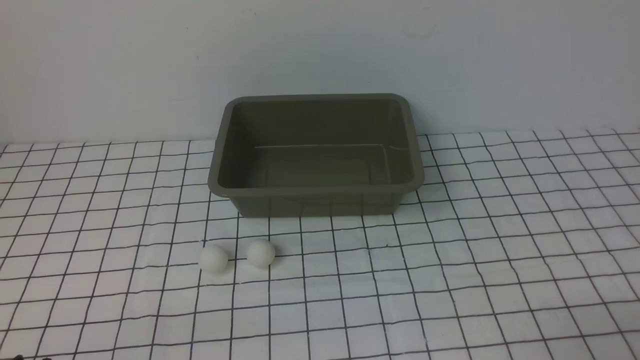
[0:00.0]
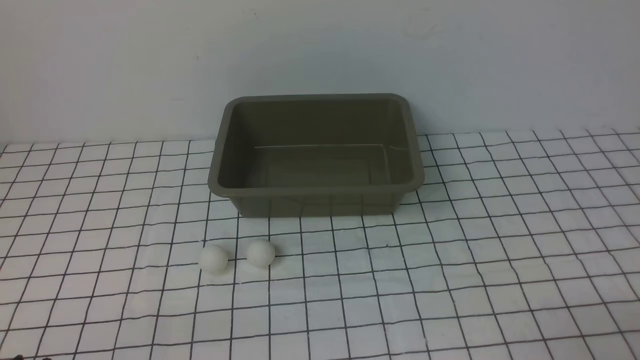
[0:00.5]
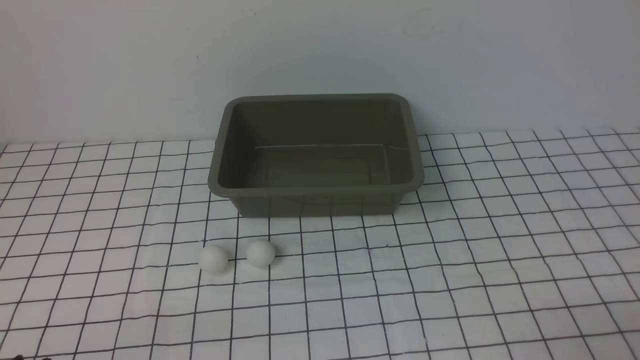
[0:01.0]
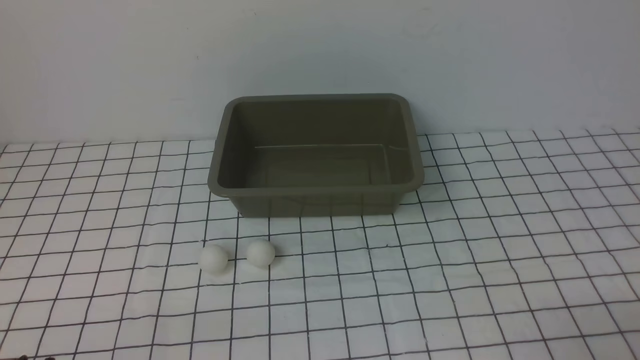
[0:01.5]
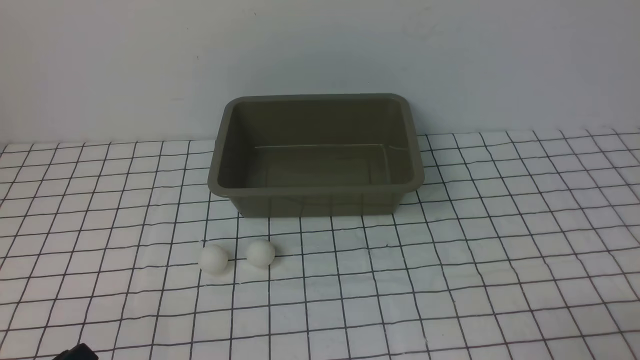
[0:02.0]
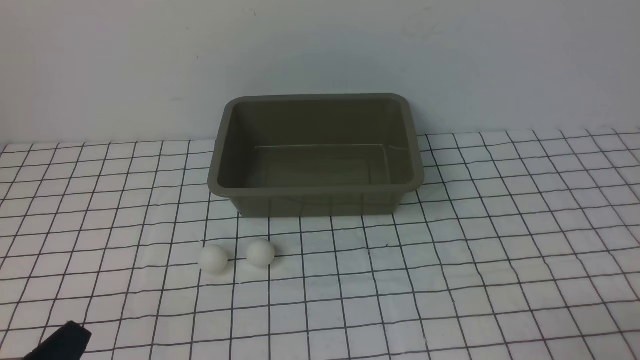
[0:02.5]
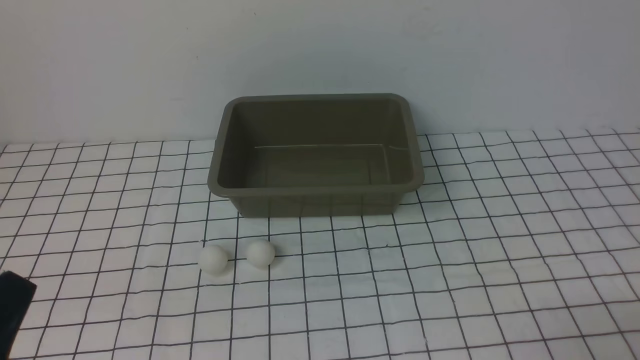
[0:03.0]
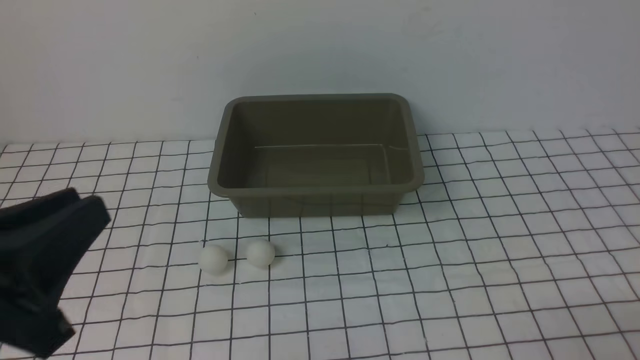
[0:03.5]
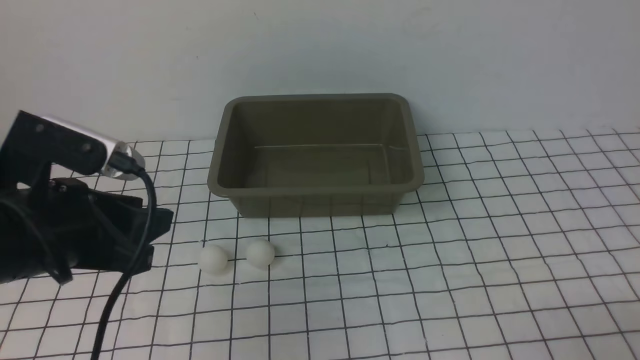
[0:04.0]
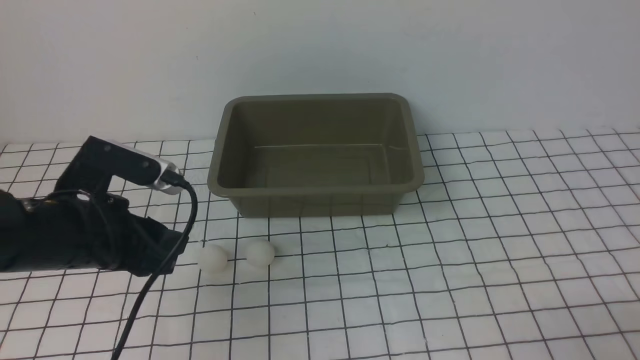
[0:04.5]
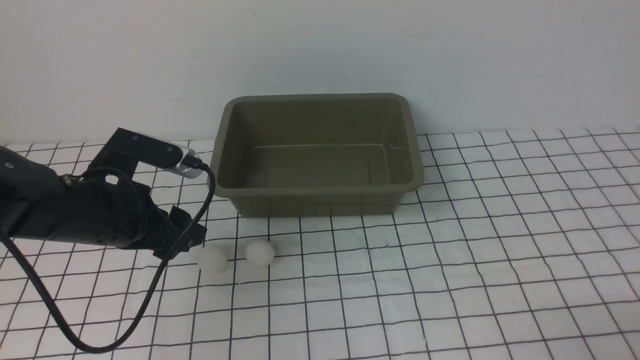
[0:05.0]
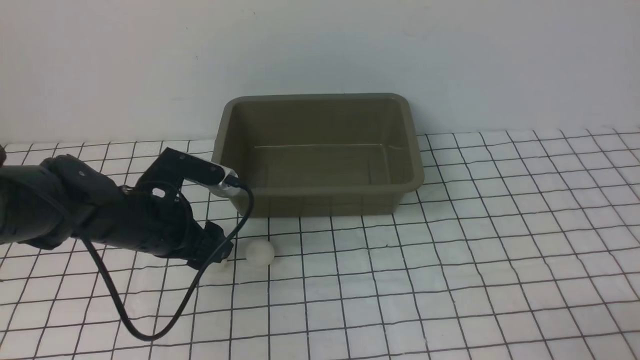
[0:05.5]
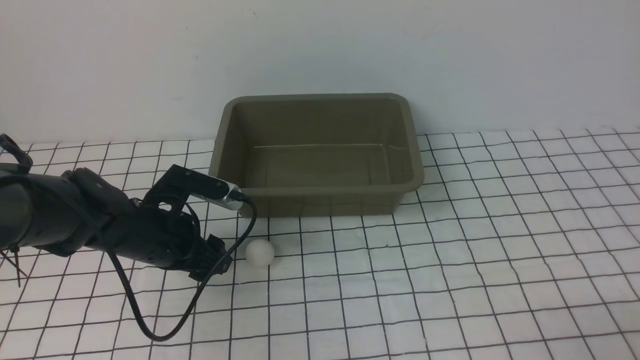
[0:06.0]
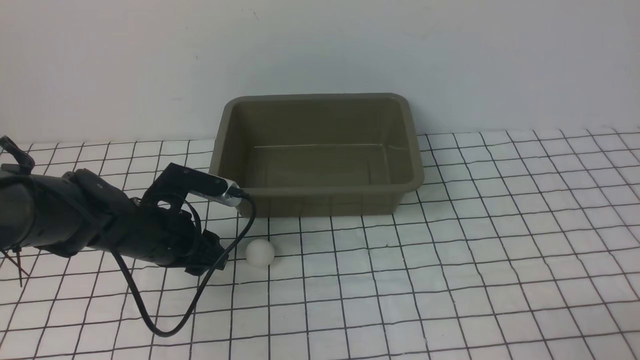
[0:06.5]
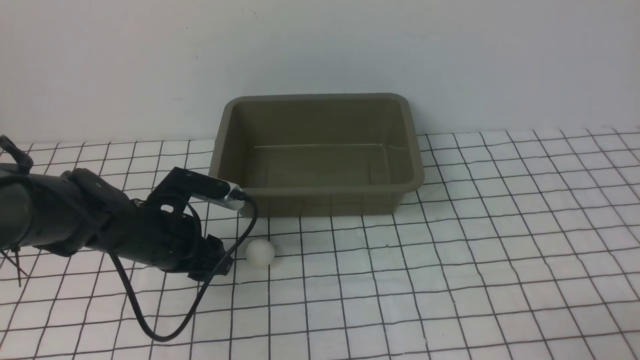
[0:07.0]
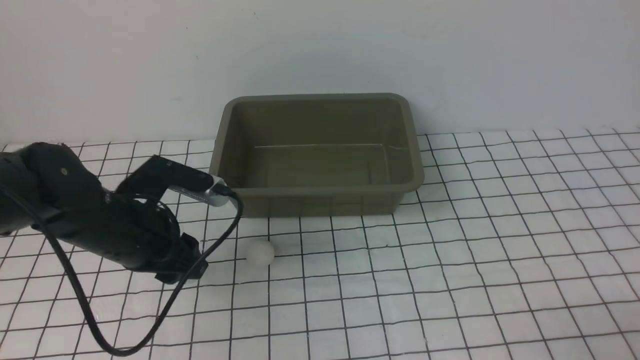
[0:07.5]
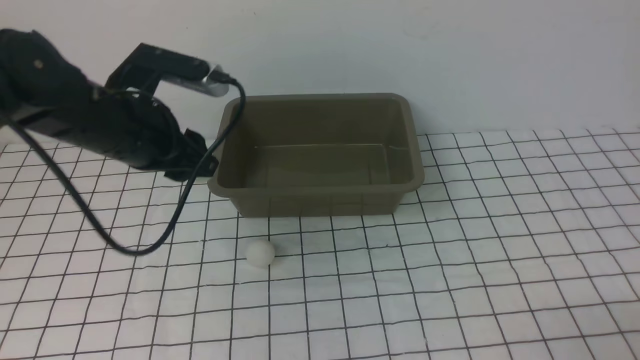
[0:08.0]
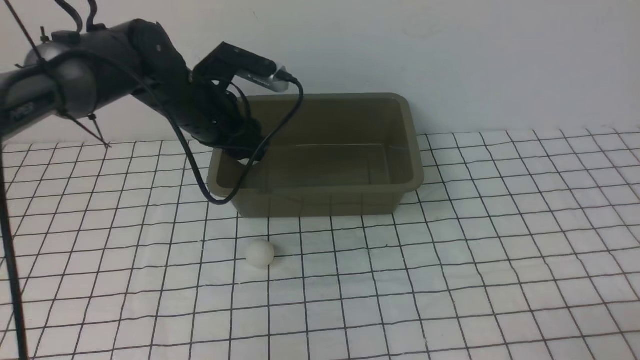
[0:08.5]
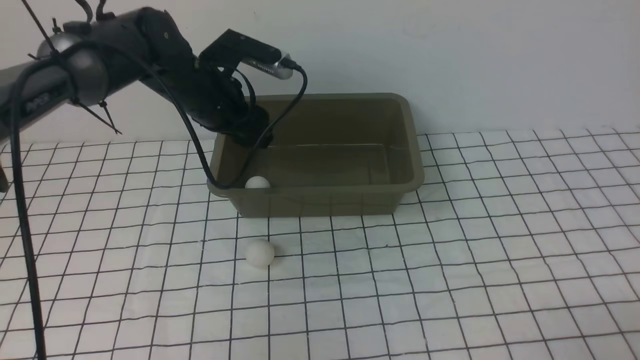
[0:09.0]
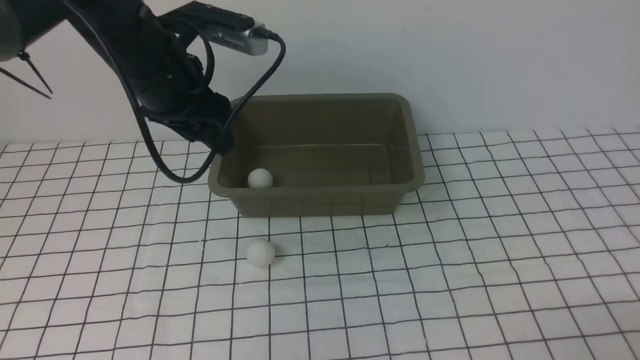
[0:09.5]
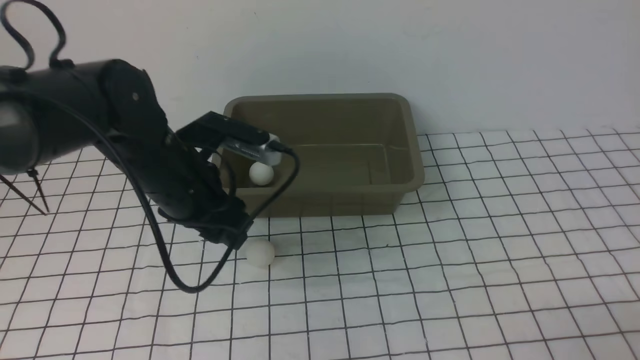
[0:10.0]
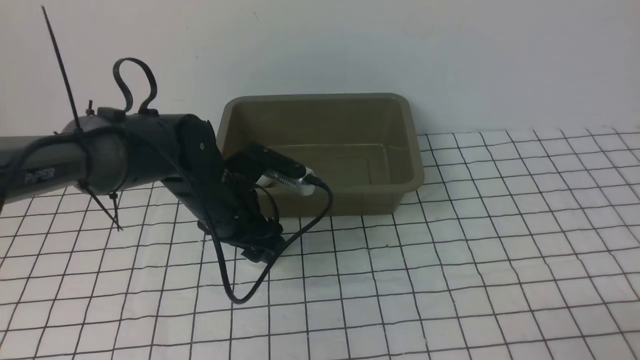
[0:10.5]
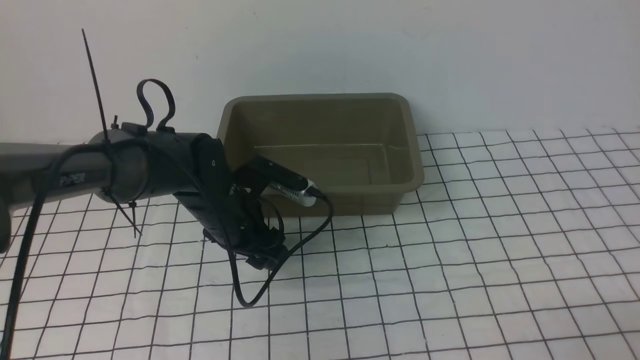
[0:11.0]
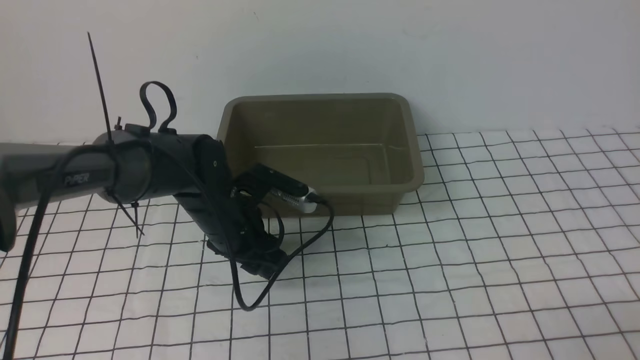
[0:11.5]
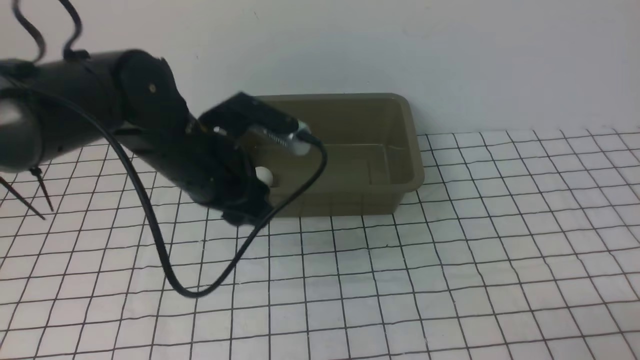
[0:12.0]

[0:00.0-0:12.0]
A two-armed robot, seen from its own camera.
Step, 0:00.0 to 0:07.0: use the left arm to clamp the table tennis ball closest to it.
Step, 0:07.5 to 0:09.0: use the left arm to put the table tennis ball into the box.
Step, 0:09.5 to 0:11.5: use the left arm to clamp the table tennis ball closest to it.
0:02.0 to 0:04.0: The left gripper shifts approximately 20 cm forward and upward.
0:04.0 to 0:06.0: The left gripper heads downward and forward, covering about 20 cm, and opens up.
0:06.0 to 0:08.0: The left gripper travels upward by some 15 cm.
0:08.0 to 0:10.0: The left gripper goes forward and returns, roughly 10 cm each way.
0:10.0 to 0:12.0: The left gripper moves approximately 10 cm downward and comes back.

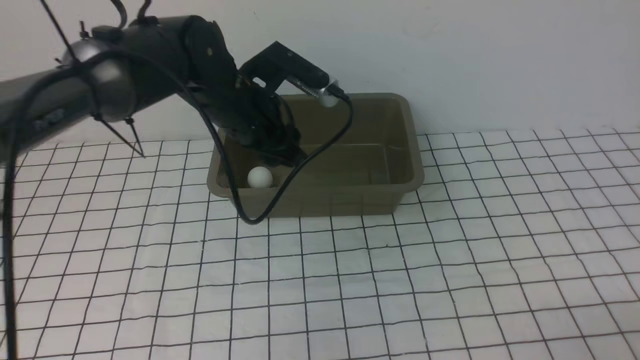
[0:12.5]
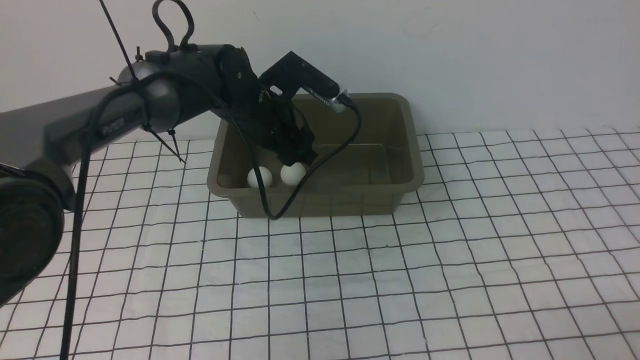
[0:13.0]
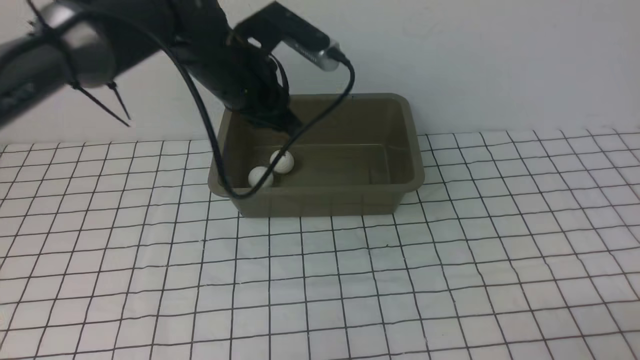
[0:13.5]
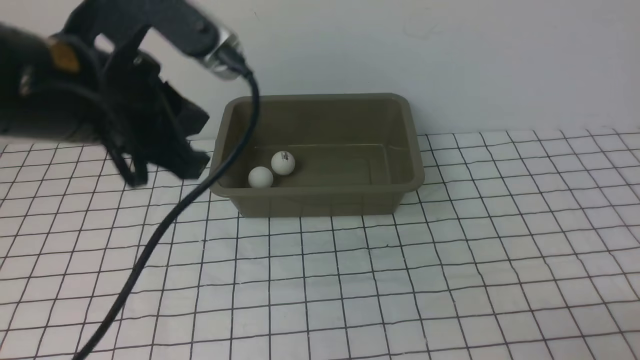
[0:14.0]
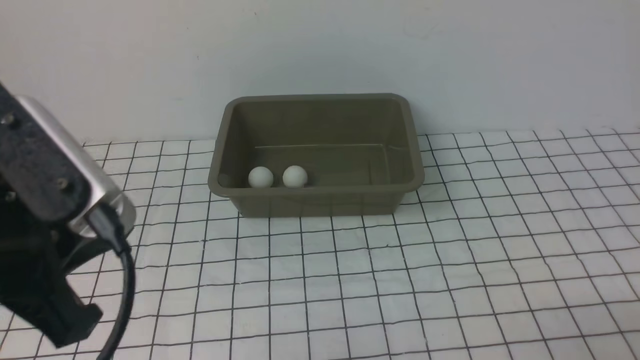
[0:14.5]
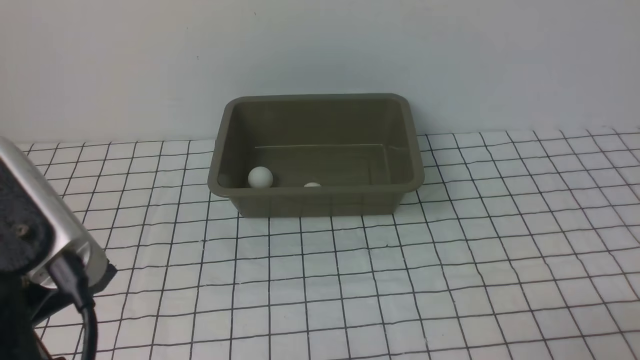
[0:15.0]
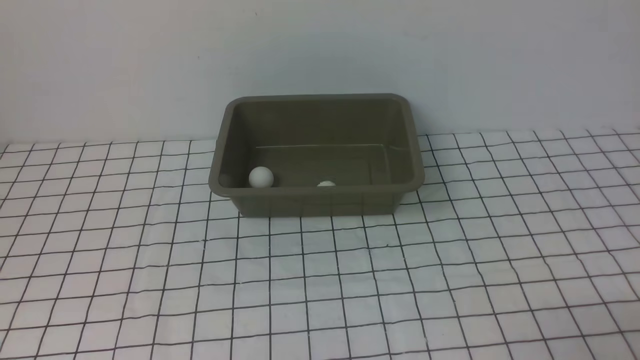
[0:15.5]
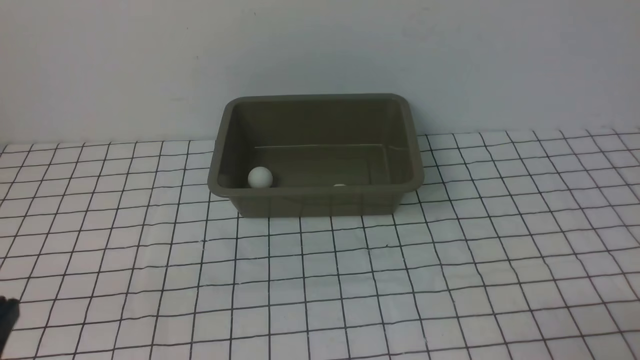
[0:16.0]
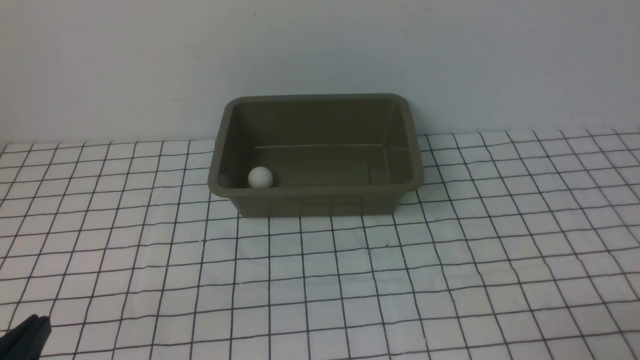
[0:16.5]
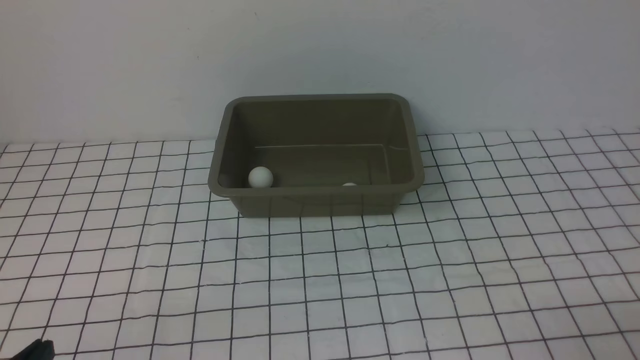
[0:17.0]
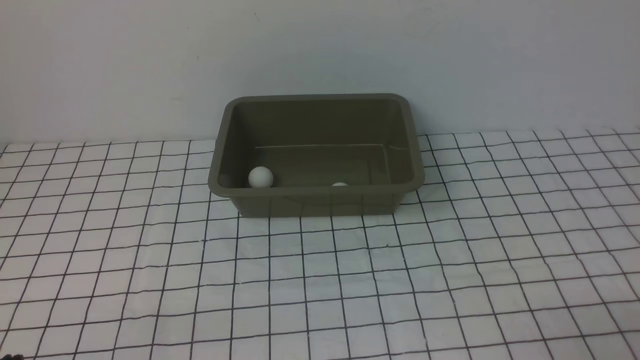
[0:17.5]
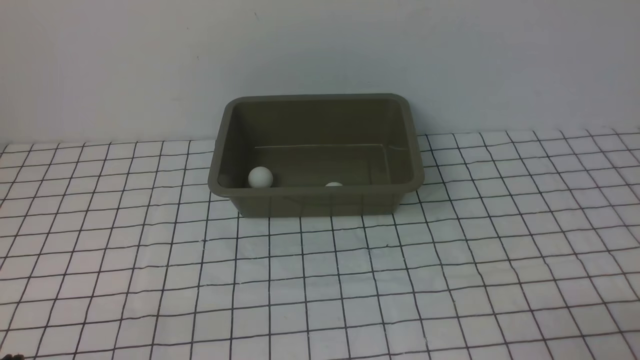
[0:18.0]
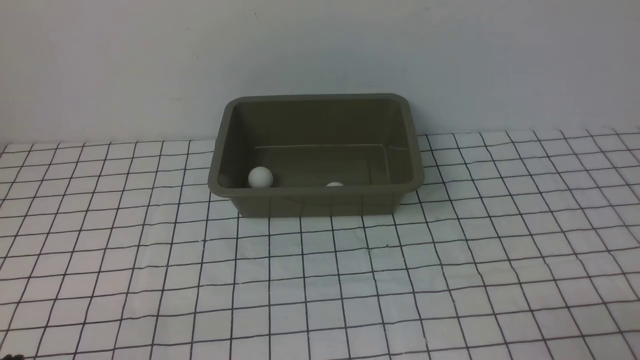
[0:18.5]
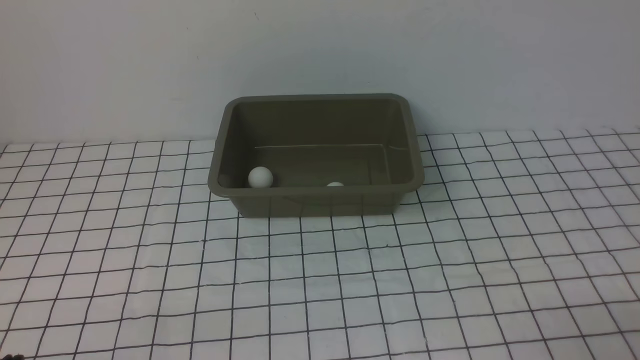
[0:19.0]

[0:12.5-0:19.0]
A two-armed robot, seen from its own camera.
0:12.5 to 0:14.5: The left gripper goes some 25 cm backward, and closes.
0:14.5 to 0:17.0: The left gripper heads downward and backward, covering approximately 20 cm.

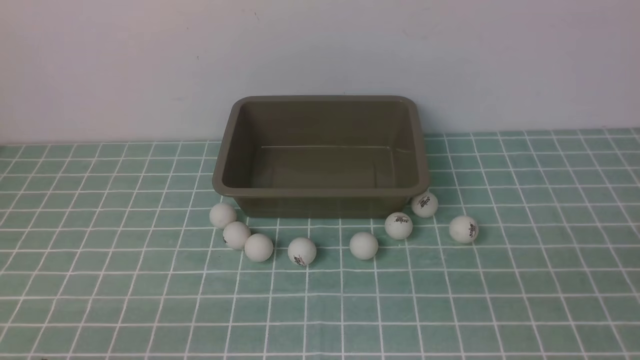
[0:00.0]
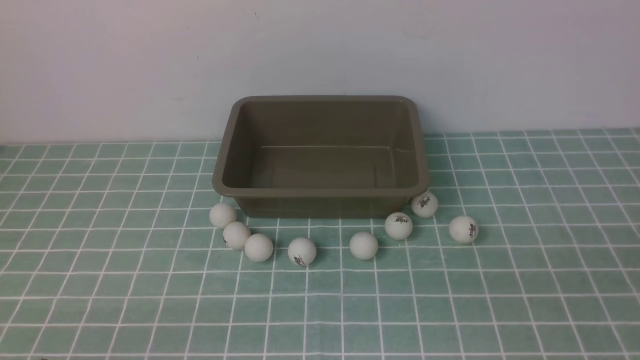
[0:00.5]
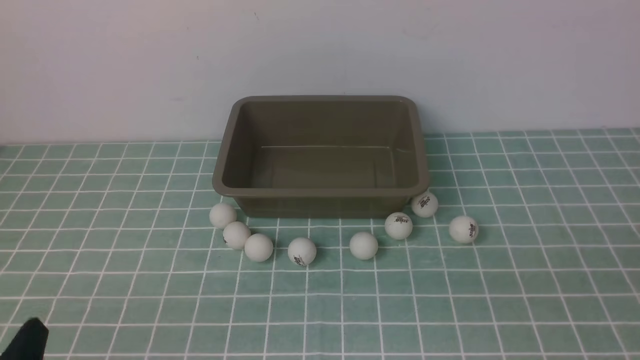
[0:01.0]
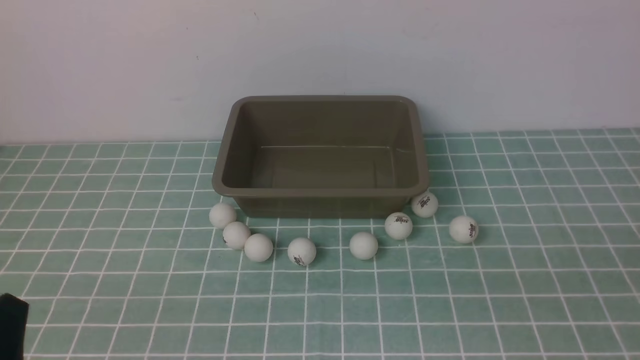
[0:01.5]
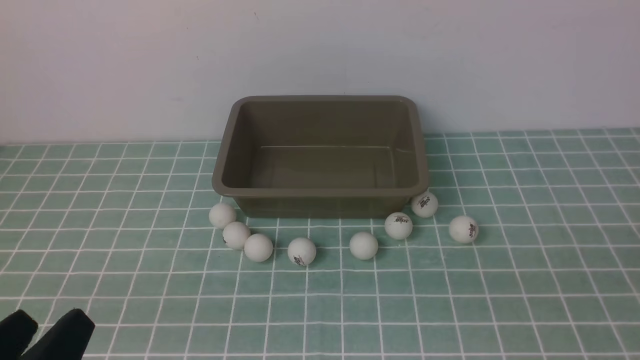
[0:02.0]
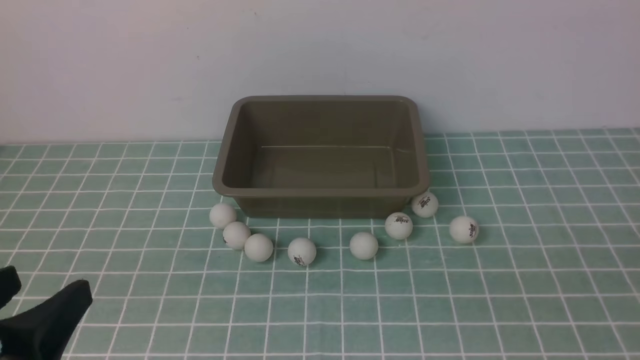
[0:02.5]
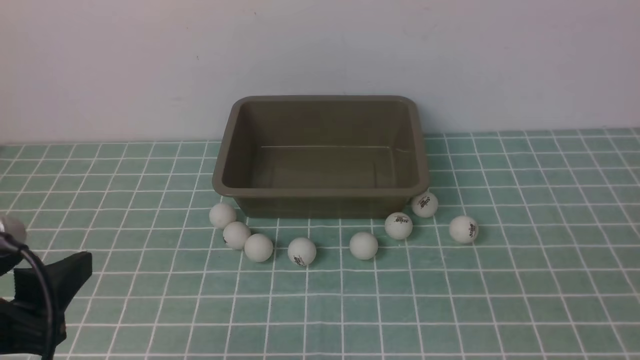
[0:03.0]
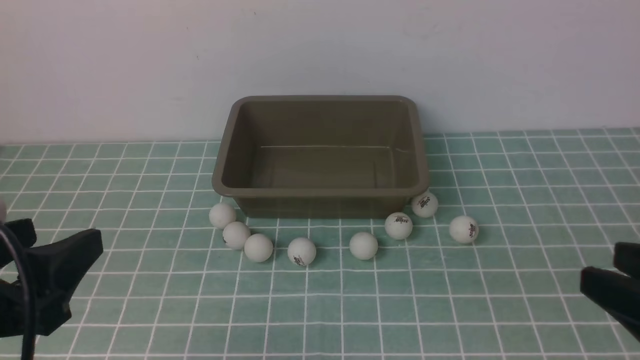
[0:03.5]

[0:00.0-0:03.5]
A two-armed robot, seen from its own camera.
0:00.0 to 0:02.0: The left gripper moves upward, some 10 cm.
0:02.0 to 0:03.5: The left gripper goes roughly 5 cm forward. The right gripper moves forward, approximately 15 cm.
